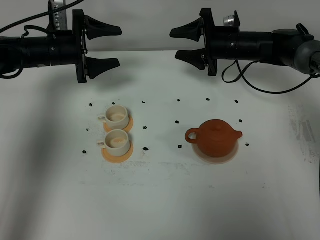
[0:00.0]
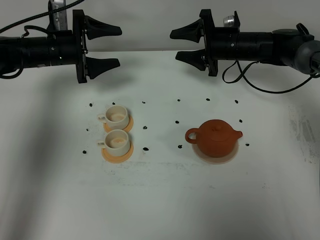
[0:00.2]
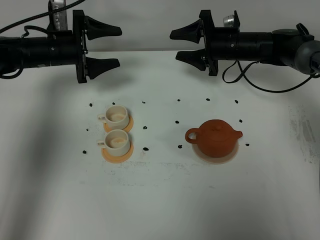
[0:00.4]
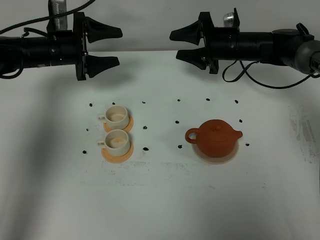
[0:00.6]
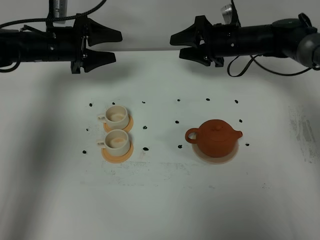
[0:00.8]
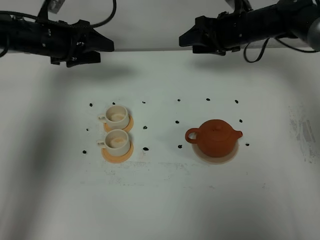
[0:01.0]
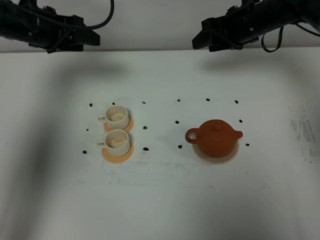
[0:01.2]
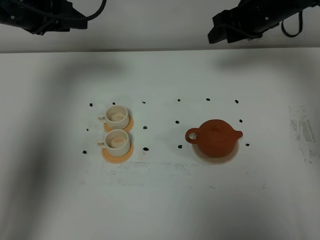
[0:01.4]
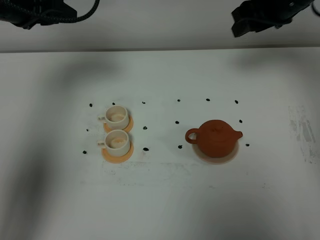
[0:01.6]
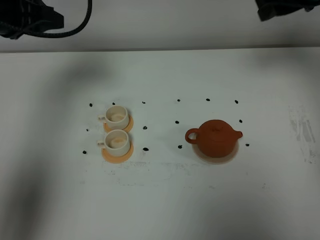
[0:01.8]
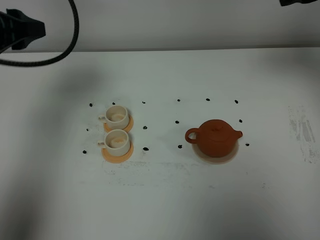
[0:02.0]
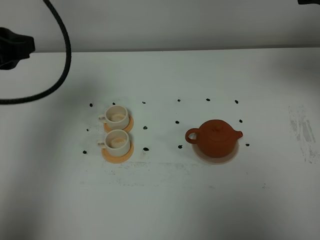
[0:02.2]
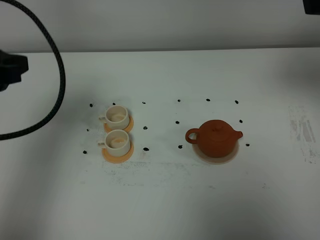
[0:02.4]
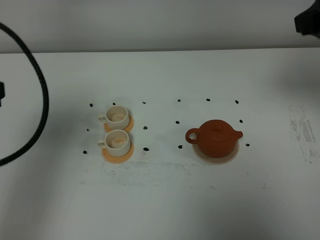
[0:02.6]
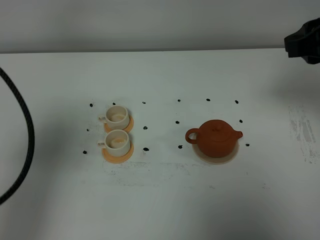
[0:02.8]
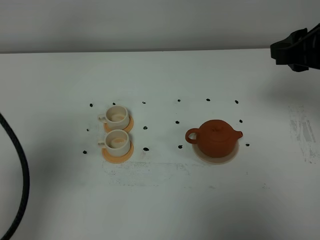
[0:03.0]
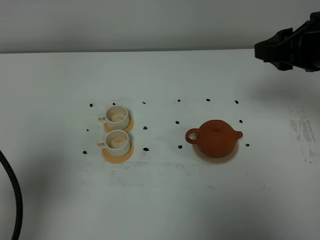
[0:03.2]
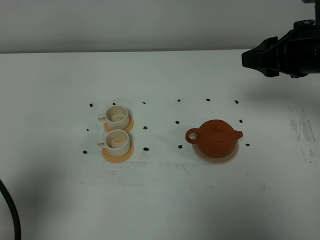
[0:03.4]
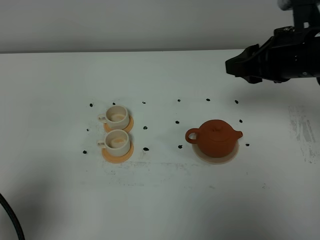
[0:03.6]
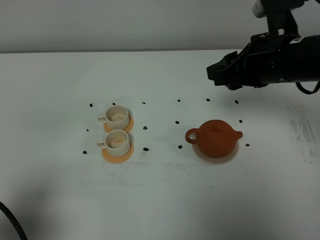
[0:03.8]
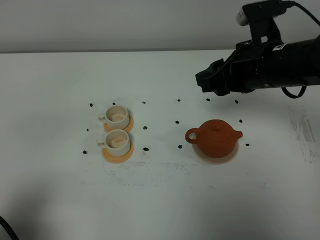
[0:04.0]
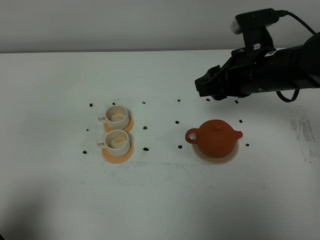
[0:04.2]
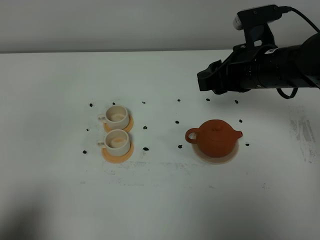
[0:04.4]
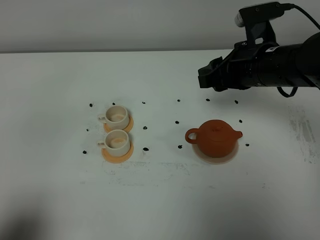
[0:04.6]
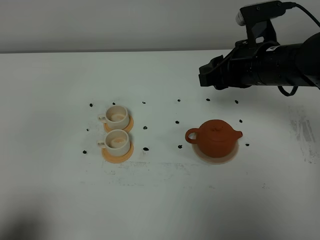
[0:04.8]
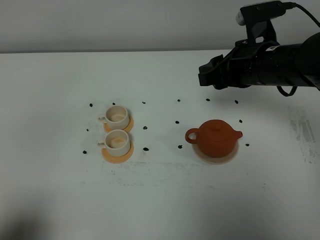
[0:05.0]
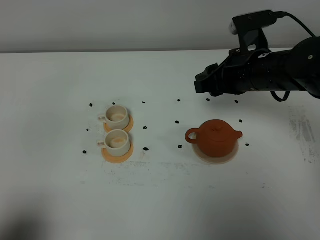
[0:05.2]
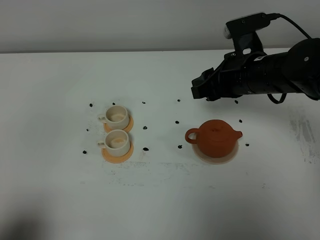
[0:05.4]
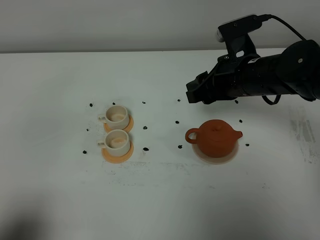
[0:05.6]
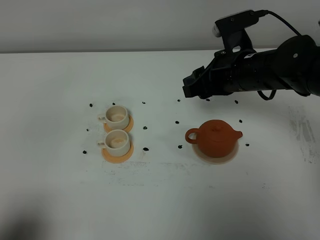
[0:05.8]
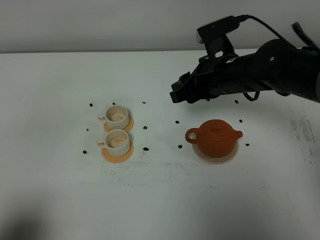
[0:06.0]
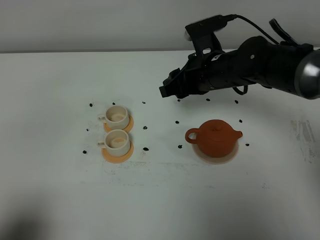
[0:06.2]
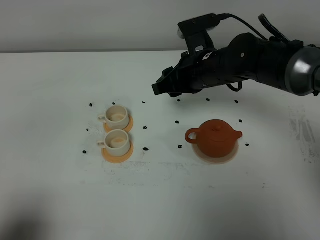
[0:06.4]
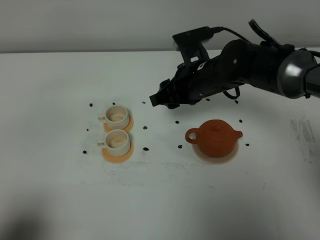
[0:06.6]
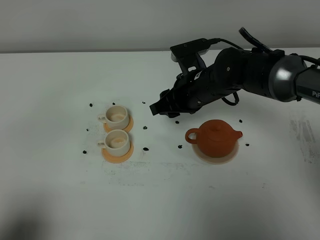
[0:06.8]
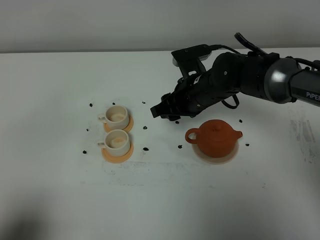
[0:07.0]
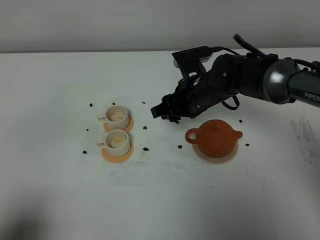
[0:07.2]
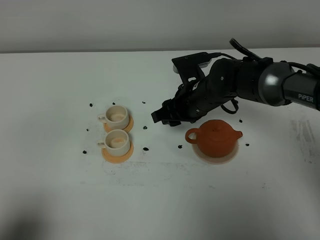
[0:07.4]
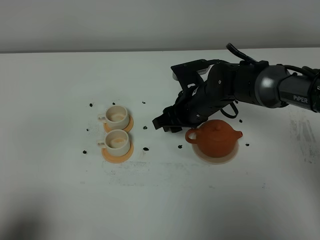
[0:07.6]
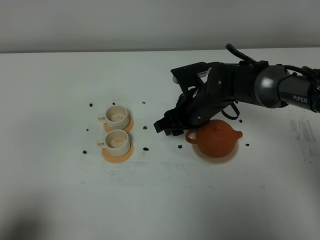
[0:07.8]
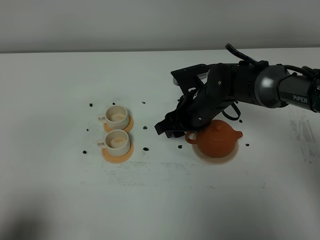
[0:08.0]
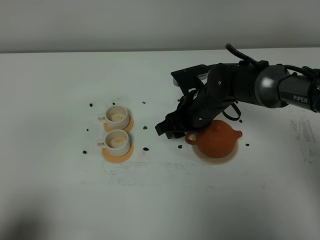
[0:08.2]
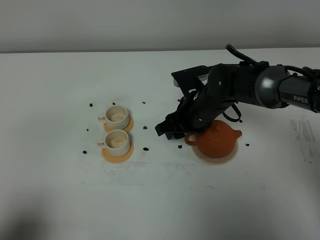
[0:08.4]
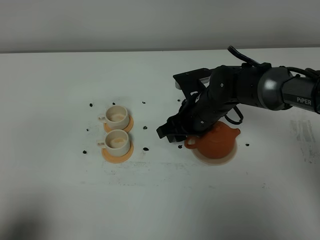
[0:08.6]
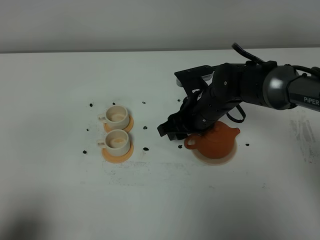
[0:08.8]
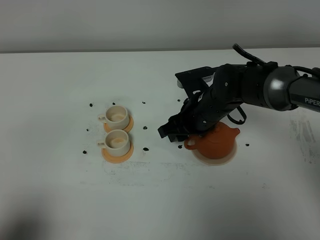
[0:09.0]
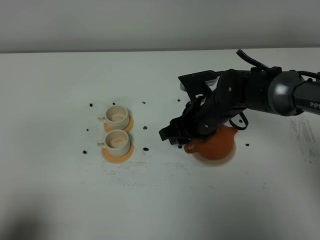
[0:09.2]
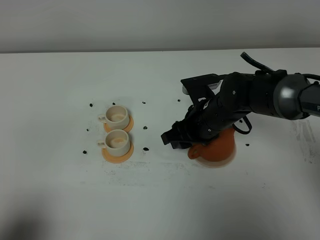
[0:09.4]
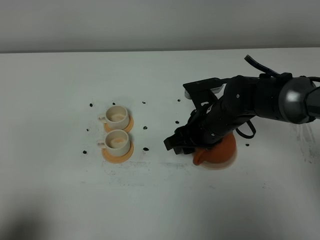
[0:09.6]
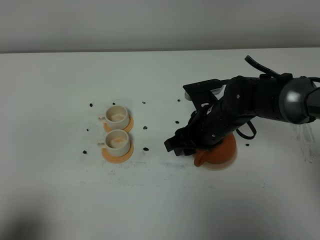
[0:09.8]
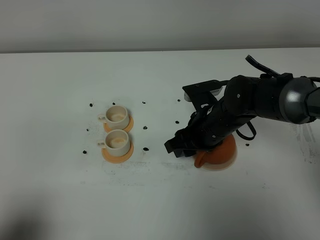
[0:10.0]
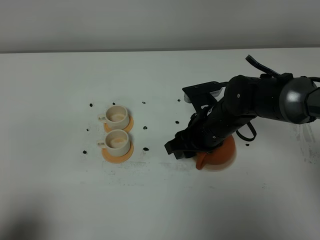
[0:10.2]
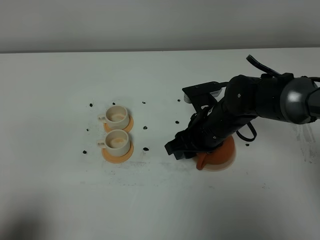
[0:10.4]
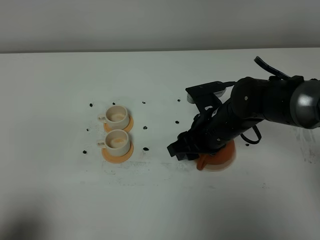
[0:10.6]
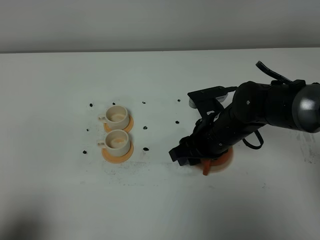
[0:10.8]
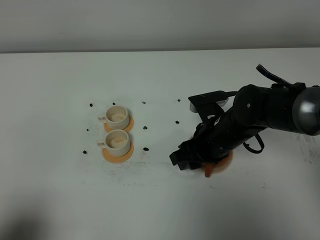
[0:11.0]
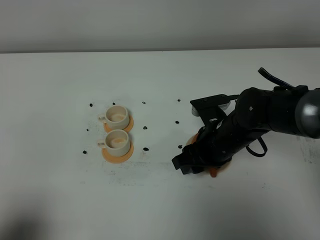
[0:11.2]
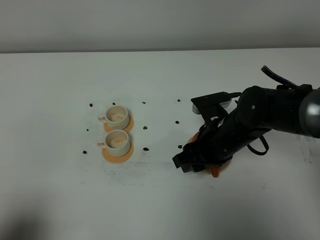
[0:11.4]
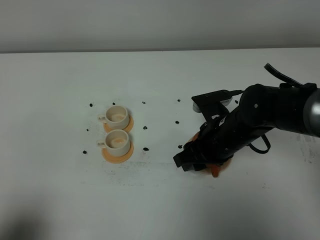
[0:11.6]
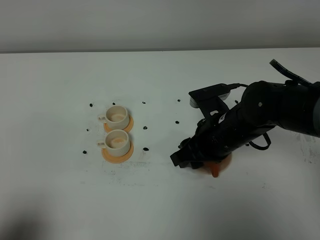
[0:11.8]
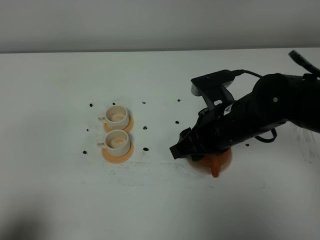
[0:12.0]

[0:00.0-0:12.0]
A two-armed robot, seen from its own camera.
Task of the whole recording: grasp the brown teapot and pour the tea into the two white teacups one by one, put the brown teapot back in its original place.
0:00.0 to 0:01.6: Both grippers travel together upward and backward, roughly 20 cm. The left gripper closes.
0:01.6 to 0:03.0: The right gripper shifts approximately 15 cm backward. The left gripper moves backward, some 30 cm, and closes its fingers.
0:03.0 to 0:04.4: The left gripper moves backward and downward, approximately 15 cm; the right gripper is displaced downward, to the left and forward by approximately 15 cm.
0:04.4 to 0:06.0: The right gripper shifts by some 5 cm.
0:06.0 to 0:07.6: The right gripper heads downward, covering roughly 10 cm.
0:07.6 to 0:10.4: The grippers make only small movements.
0:10.4 to 0:12.0: The right gripper travels upward and backward by about 10 cm.

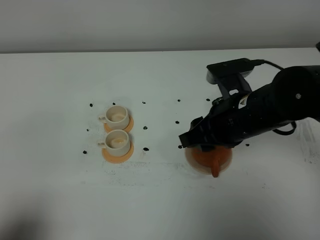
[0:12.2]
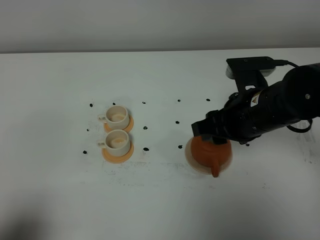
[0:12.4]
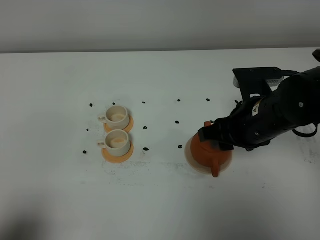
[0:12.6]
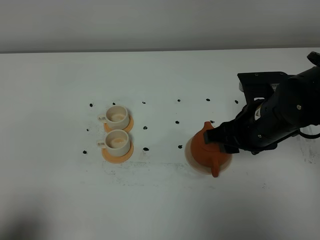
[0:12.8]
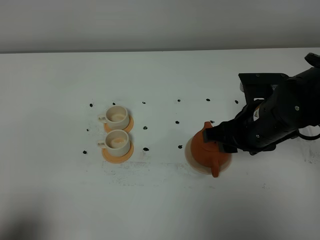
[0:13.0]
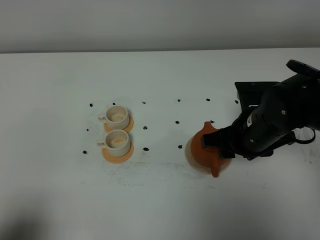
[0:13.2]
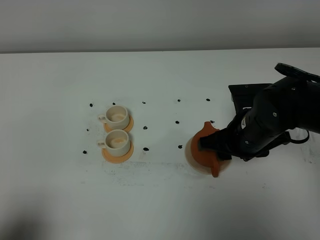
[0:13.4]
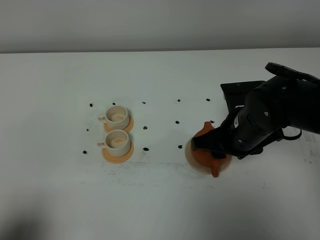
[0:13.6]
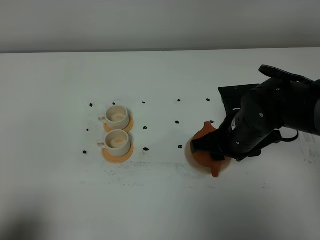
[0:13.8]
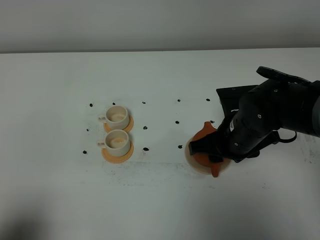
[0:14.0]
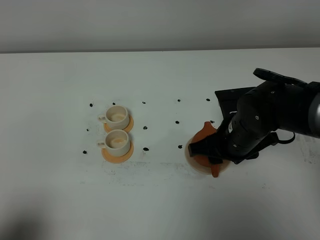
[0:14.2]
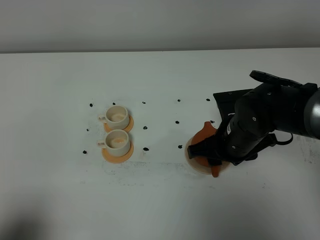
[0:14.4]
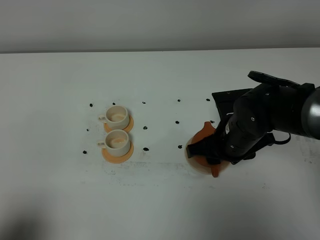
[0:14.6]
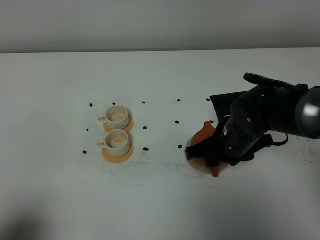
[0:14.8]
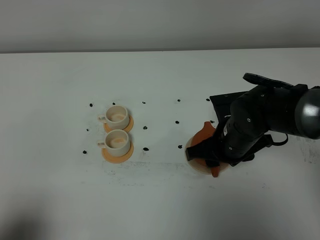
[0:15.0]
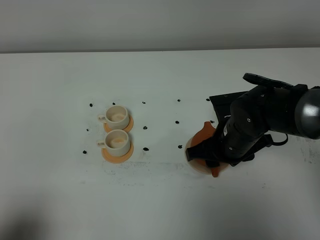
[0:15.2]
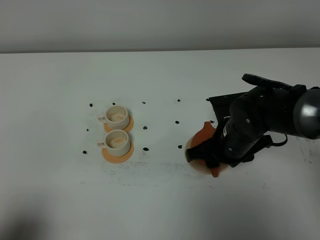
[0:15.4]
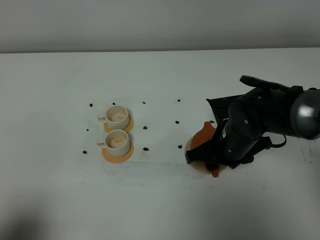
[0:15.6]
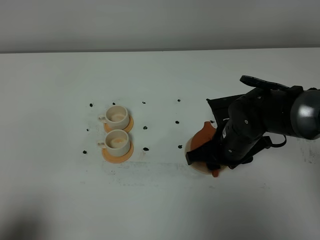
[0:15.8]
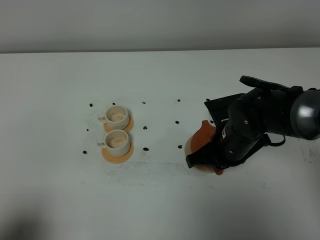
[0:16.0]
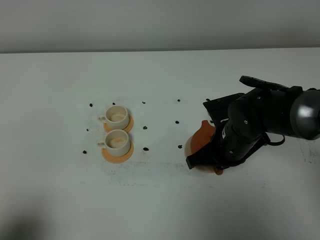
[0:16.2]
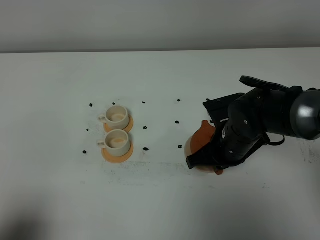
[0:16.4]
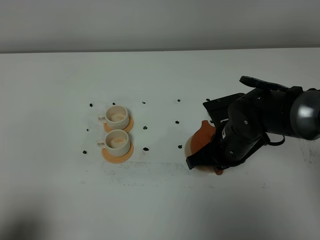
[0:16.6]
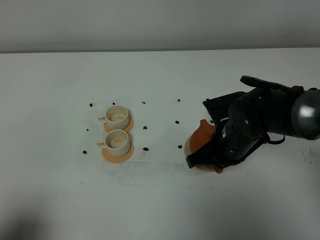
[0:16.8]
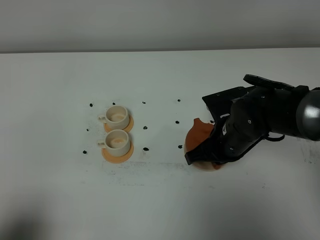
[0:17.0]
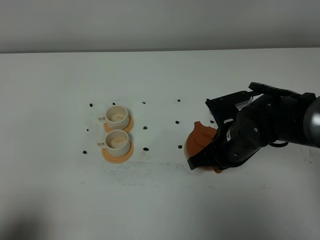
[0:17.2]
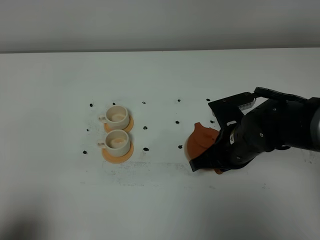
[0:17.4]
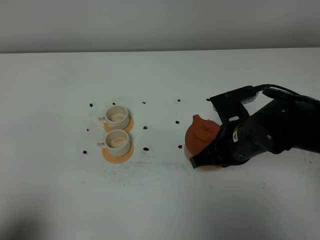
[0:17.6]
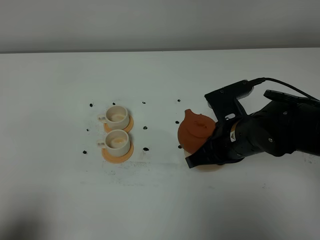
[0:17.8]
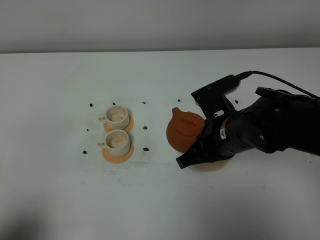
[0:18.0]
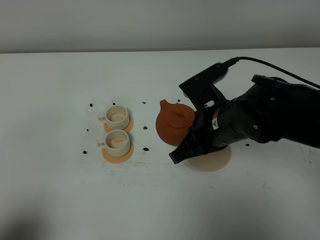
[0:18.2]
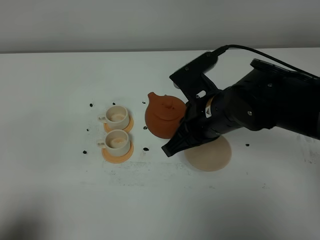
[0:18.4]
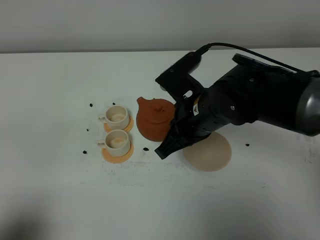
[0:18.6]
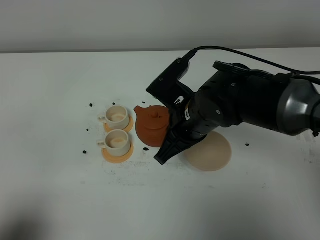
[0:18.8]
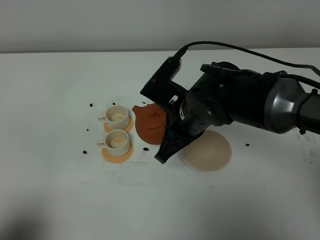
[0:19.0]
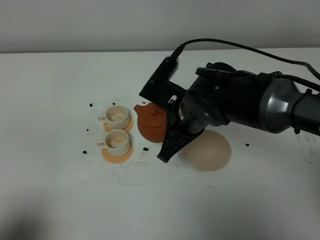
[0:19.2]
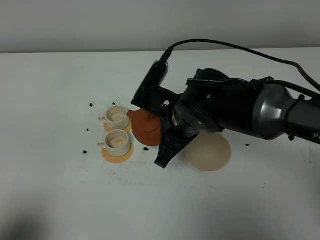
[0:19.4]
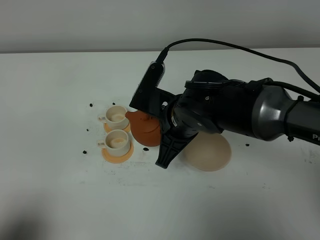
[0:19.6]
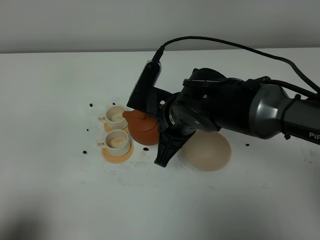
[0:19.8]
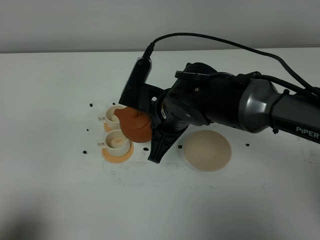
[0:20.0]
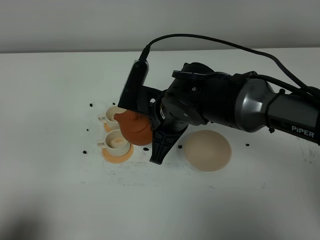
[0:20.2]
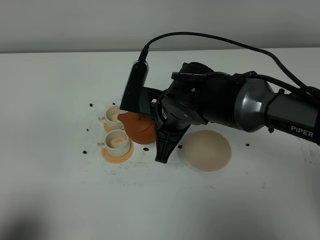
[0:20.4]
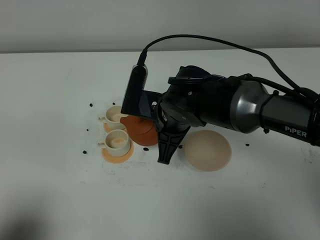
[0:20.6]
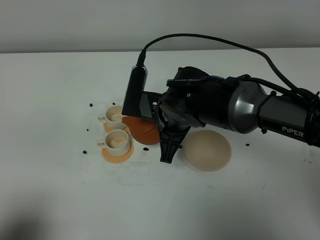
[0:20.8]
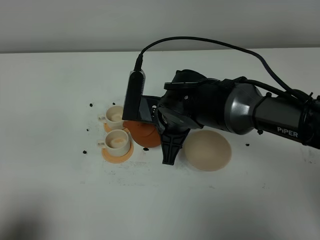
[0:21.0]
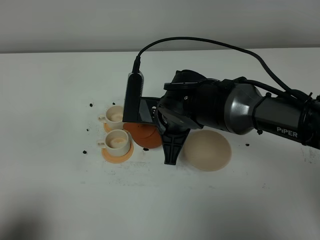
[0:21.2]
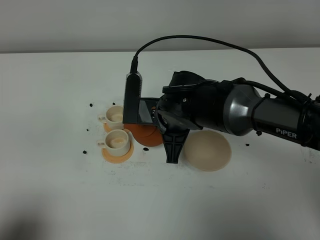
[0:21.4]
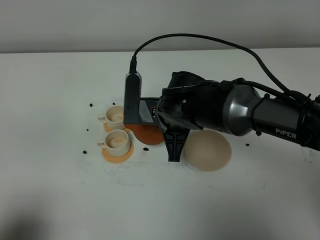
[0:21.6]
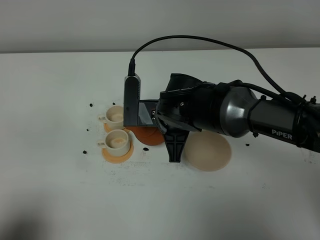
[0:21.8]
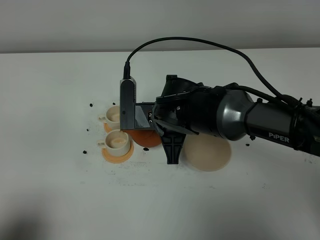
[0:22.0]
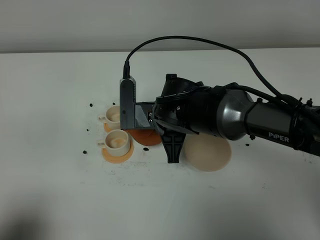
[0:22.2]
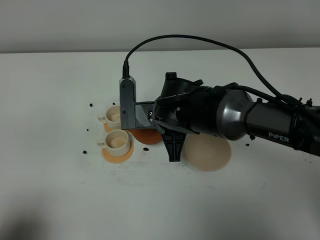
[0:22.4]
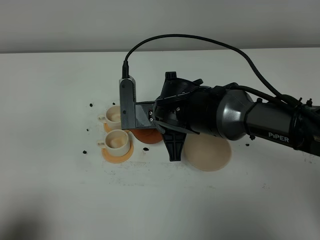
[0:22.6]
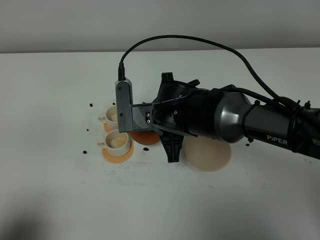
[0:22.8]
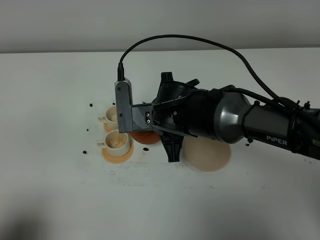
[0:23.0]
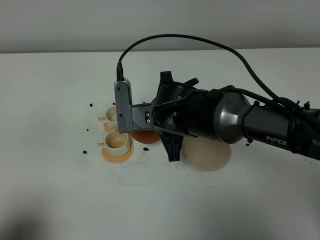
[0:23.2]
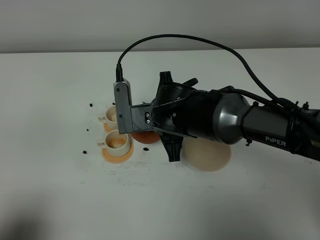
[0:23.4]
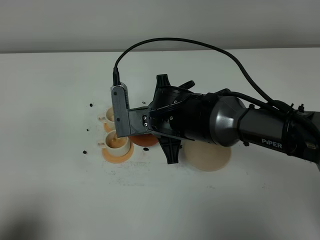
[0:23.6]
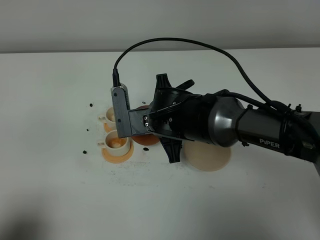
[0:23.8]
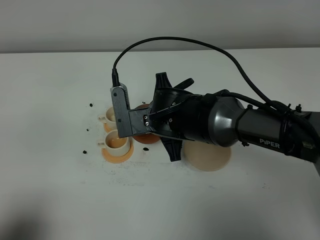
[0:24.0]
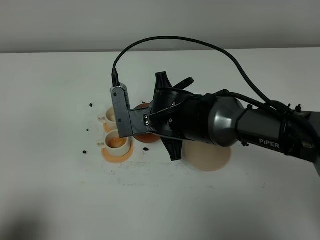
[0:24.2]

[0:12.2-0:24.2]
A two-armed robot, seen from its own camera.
Task of the whole recording: grasp the brown teapot and pour the tea into the two white teacups one by one, put the brown teapot back in its original place.
Step, 0:12.2 to 0:17.0: Pick up the teapot with the right gripper.
0:12.2 to 0:13.8: The right gripper shifts some 5 cm downward.
0:13.8 to 0:15.2: There are only small adjustments of the grippers.
0:15.2 to 0:16.6: The right gripper closes.
0:16.6 to 0:18.2: The right gripper goes roughly 5 cm upward.
0:18.2 to 0:19.8: The right gripper is displaced to the left by approximately 5 cm.
0:19.8 to 0:21.2: The grippers move only a little.
0:21.2 to 0:22.6: The grippers make only small movements.
0:22.6 to 0:24.2: The grippers make only small movements.
